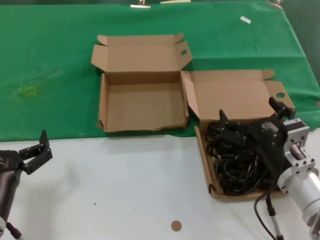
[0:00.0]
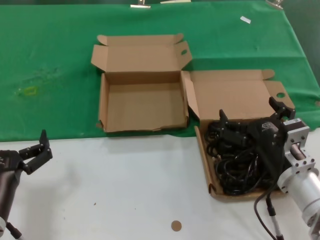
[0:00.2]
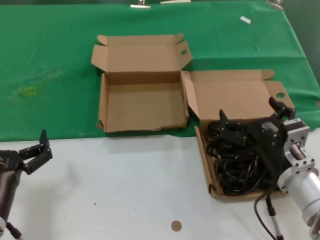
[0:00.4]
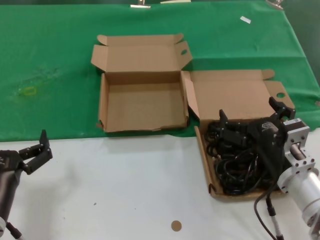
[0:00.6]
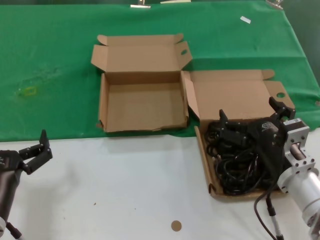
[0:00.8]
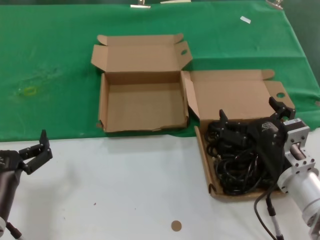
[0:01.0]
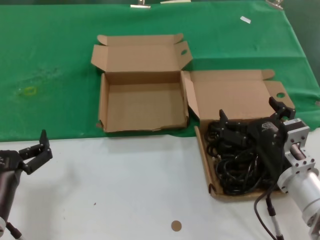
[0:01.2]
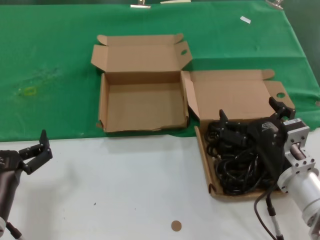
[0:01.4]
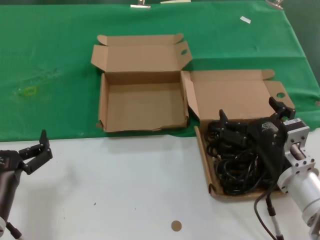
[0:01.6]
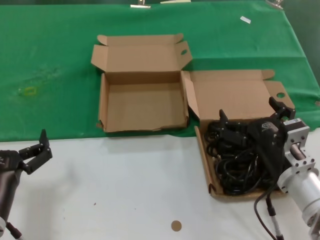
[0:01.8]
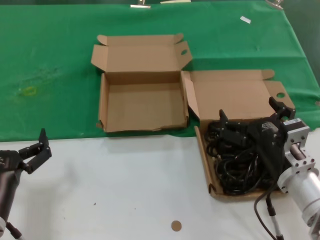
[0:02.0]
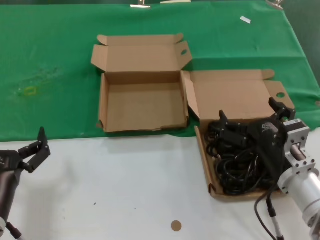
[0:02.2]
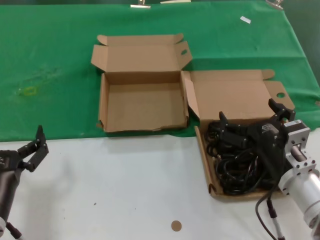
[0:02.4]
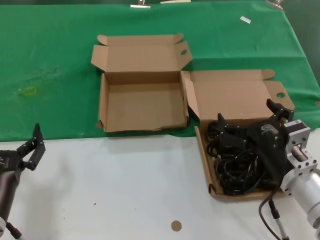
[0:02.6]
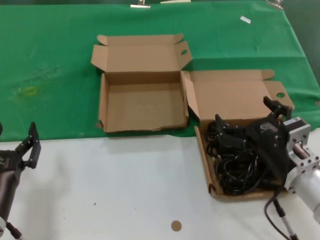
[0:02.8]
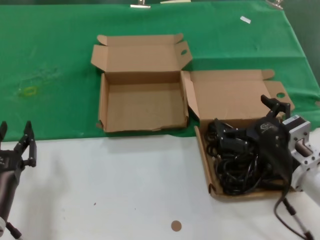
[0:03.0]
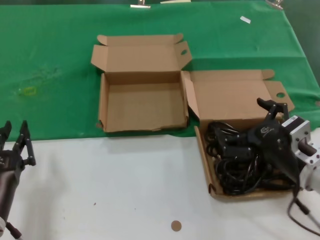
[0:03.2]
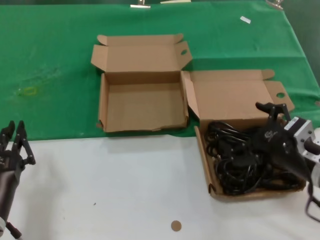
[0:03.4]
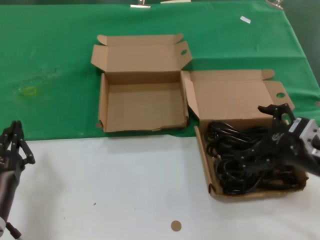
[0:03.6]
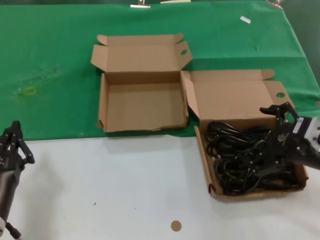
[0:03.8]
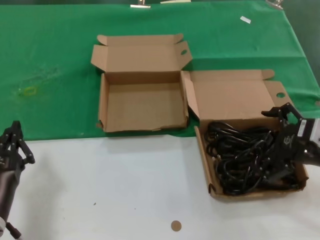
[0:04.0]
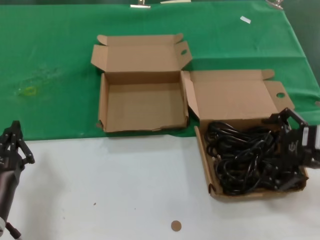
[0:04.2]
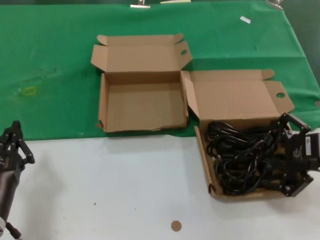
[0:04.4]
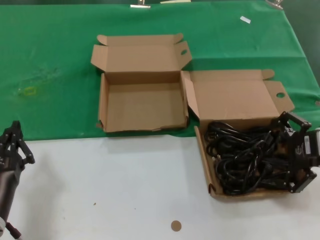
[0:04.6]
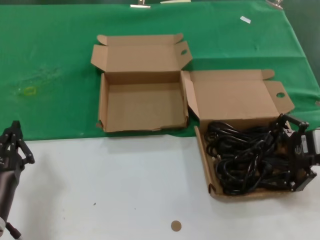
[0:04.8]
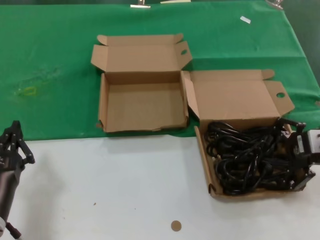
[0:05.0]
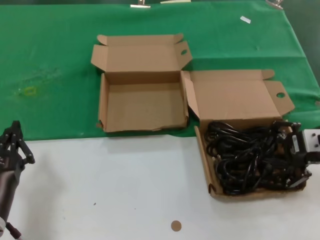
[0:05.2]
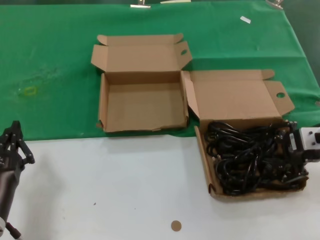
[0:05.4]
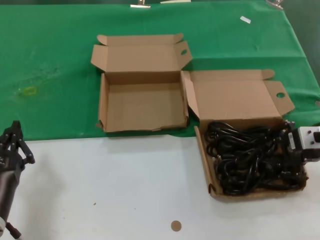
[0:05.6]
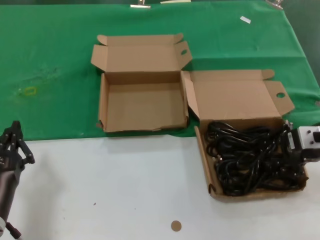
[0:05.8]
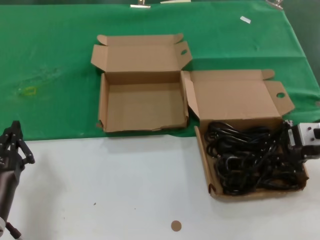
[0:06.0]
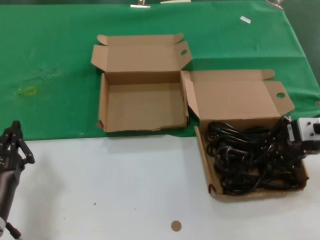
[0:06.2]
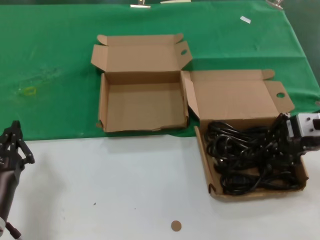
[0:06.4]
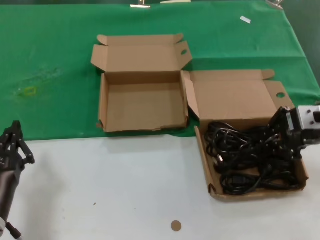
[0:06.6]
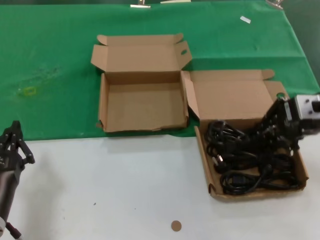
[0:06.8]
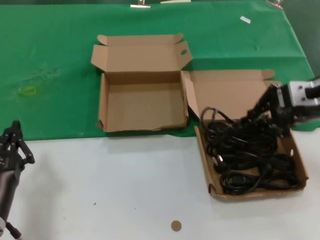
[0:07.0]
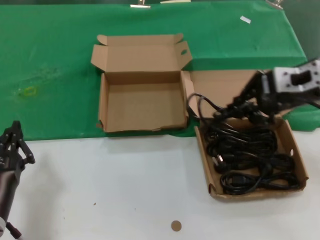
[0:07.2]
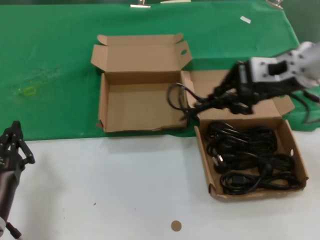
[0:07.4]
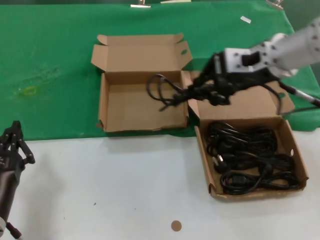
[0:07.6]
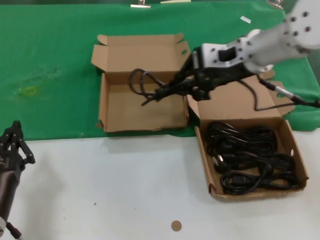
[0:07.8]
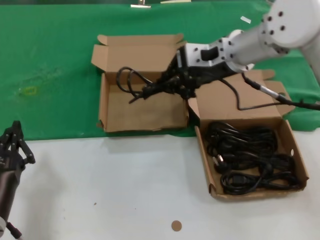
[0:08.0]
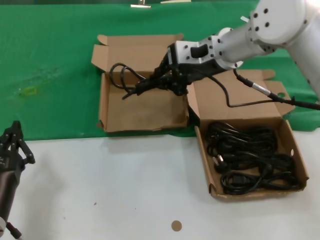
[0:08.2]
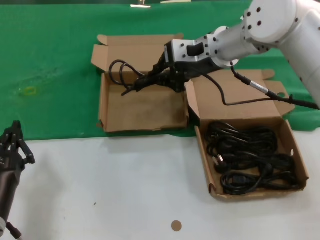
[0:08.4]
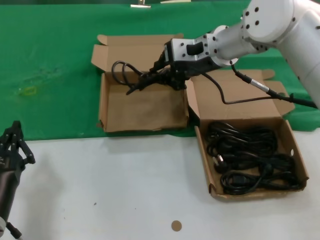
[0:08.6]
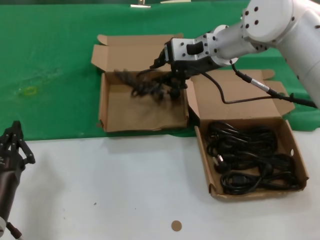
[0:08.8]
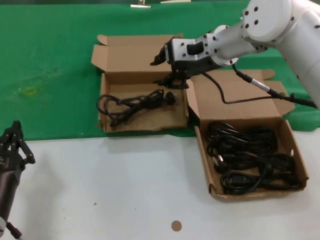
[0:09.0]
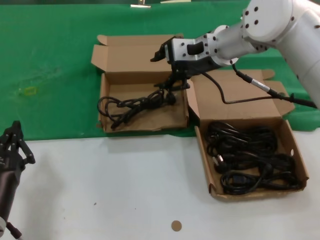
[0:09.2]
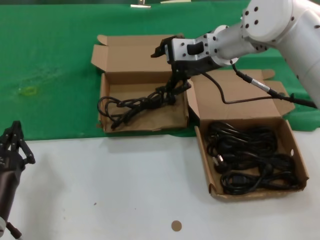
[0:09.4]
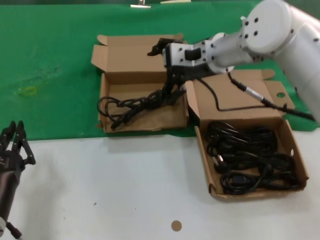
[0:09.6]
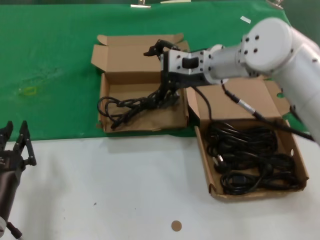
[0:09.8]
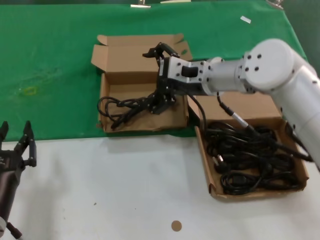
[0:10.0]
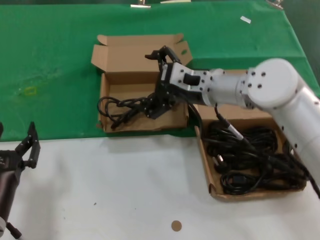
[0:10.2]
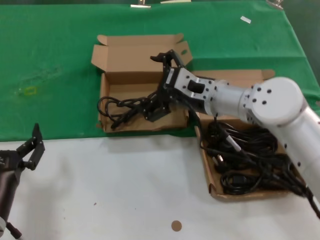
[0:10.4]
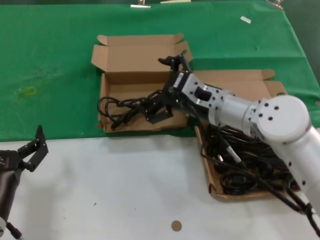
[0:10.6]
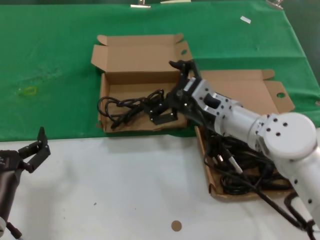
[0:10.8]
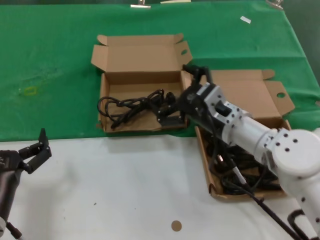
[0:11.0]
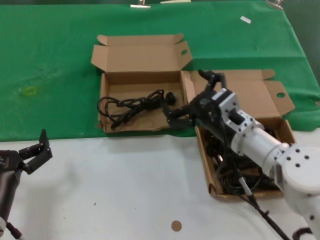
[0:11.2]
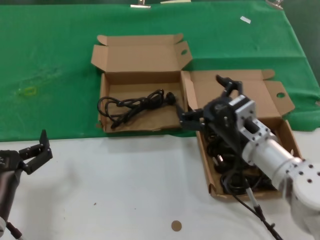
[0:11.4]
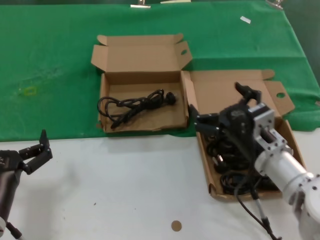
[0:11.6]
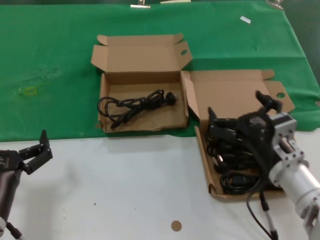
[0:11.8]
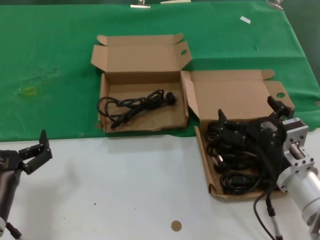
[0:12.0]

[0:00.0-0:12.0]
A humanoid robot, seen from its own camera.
Task of the whole recording: take the parts from the box containing them and put them into an empty box.
Step, 0.0 to 5.6 s: Grasp the data cable.
Step, 6.0 to 8.8 s: Place the data cable in the another box.
0.0 to 1.6 s: The two hands keep their place.
1.6 to 3.0 s: The hands make only small movements.
3.0 to 4.4 s: The right hand shifts approximately 15 cm upward and to the right.
4.4 to 6.0 s: The right hand travels forward by approximately 5 cm.
6.0 to 7.6 s: The right hand heads to the left, upward and forward, covering roughly 15 cm.
7.6 to 9.0 s: The right hand is displaced forward and to the left by about 10 cm.
9.0 to 10.4 s: The right hand is displaced downward and backward by approximately 10 cm.
10.4 to 12.0 s: The right hand travels backward, downward and to the right by approximately 20 cm.

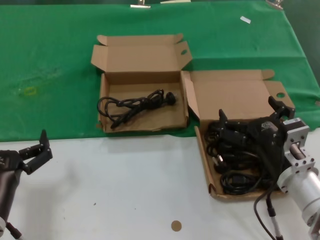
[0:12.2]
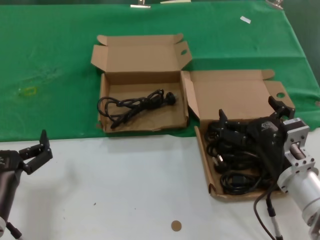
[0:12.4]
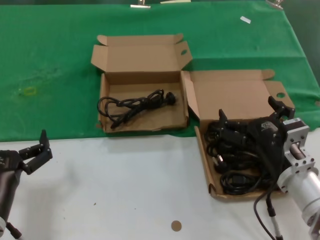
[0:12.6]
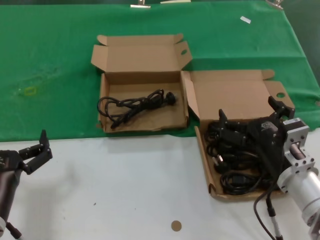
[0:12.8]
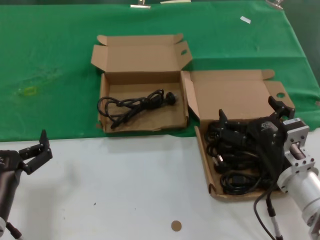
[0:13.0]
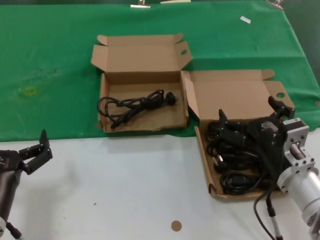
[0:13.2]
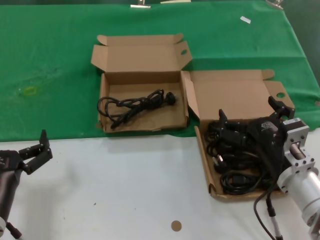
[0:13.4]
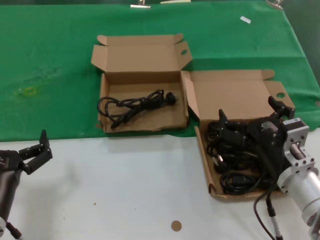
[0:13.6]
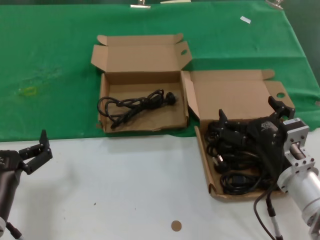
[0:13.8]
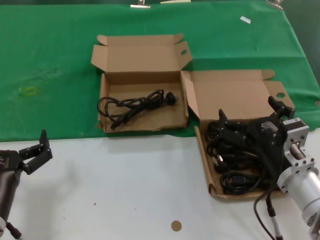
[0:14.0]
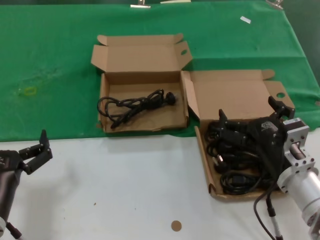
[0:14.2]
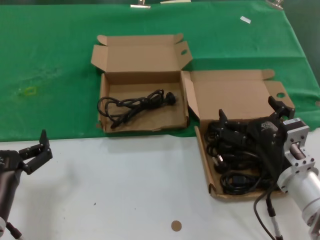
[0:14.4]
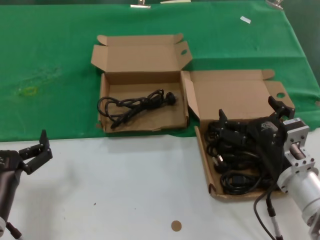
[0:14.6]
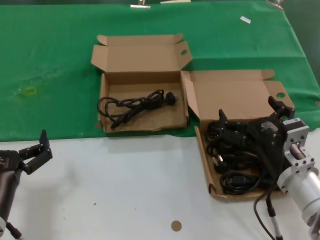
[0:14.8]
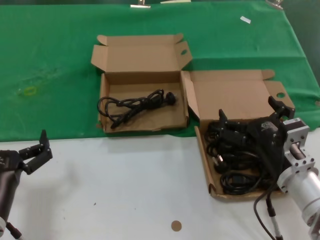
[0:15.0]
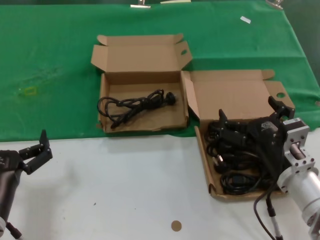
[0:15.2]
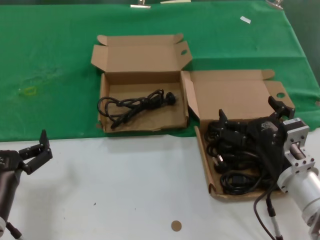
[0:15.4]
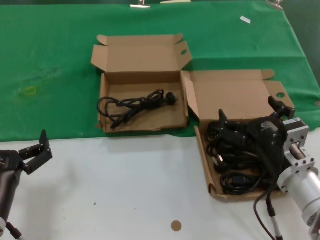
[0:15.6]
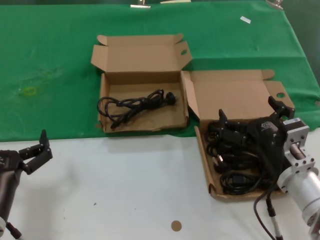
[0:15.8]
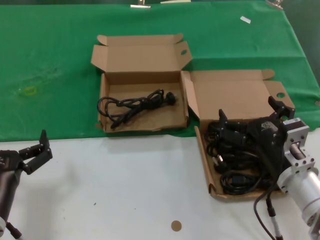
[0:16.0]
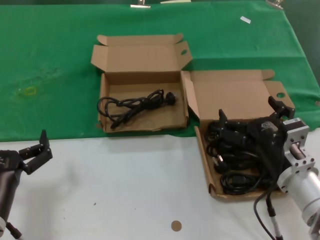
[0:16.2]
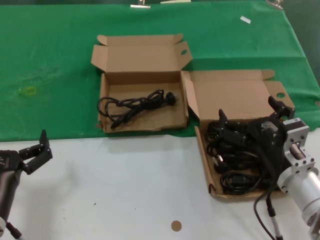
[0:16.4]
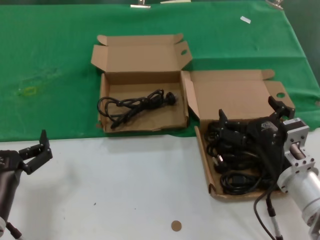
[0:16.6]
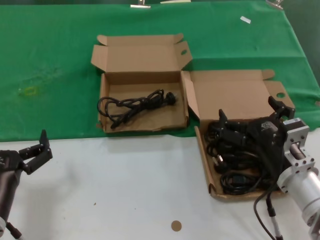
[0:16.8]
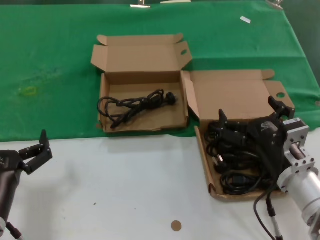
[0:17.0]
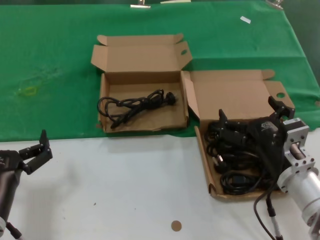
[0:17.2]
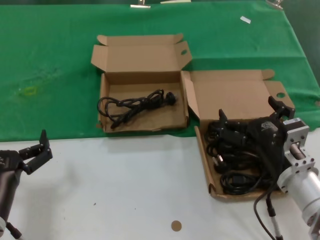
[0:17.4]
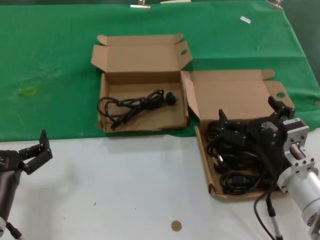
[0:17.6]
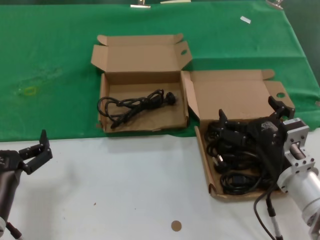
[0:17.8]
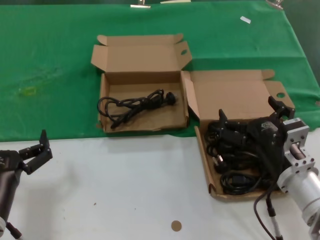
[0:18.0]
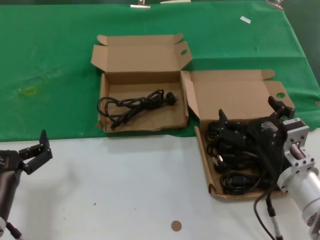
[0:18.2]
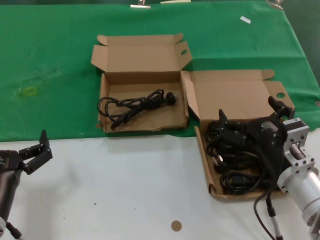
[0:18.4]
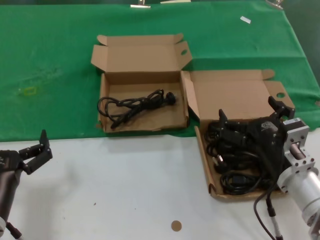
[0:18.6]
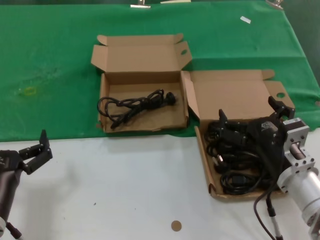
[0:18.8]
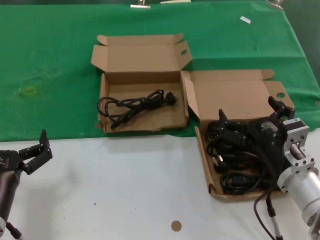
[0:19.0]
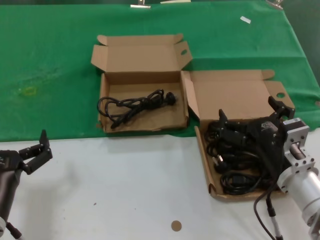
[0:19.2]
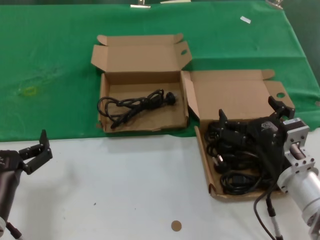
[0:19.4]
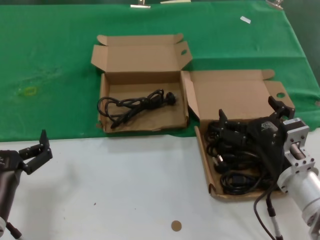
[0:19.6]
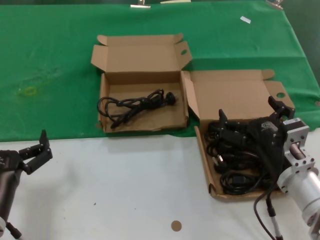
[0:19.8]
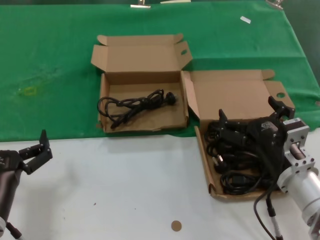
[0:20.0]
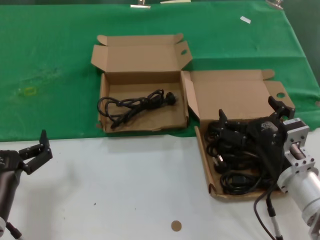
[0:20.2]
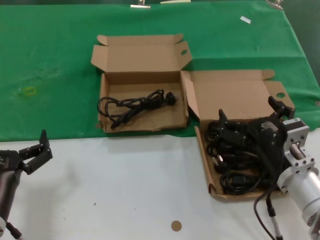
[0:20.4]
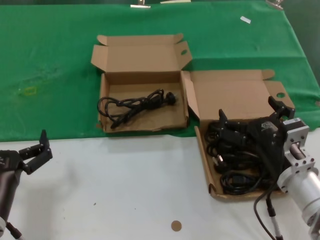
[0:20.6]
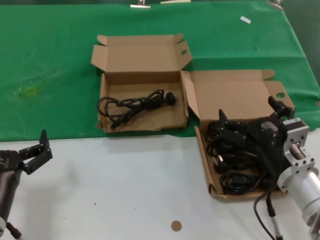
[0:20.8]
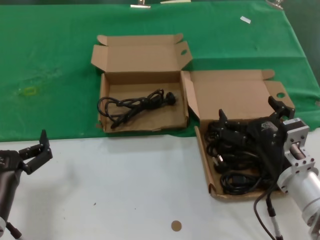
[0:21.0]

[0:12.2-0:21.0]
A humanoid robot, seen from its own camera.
Task of the whole recording: take the parts from the box containing them and put them into an empty box.
12.2 to 21.0 s: Both hands stay put.

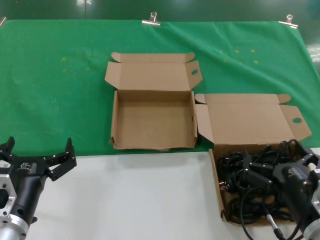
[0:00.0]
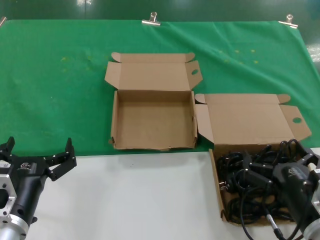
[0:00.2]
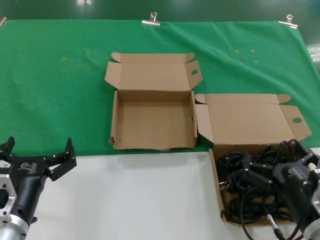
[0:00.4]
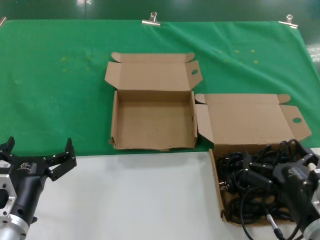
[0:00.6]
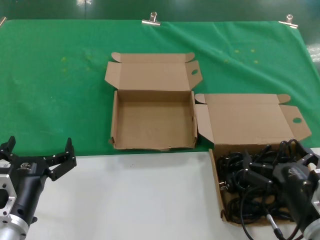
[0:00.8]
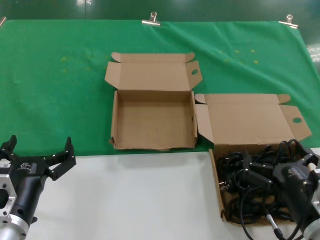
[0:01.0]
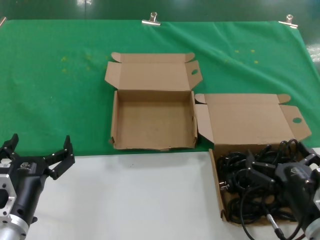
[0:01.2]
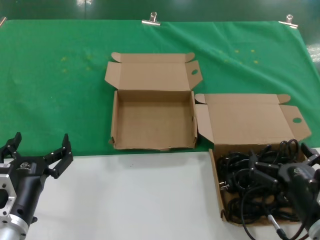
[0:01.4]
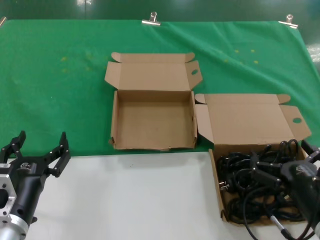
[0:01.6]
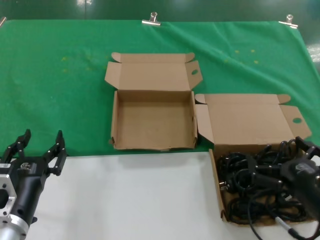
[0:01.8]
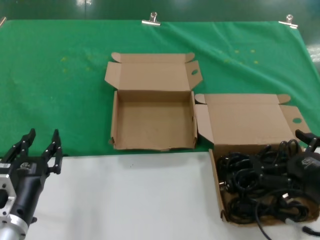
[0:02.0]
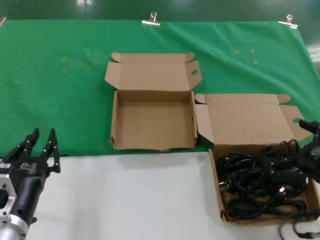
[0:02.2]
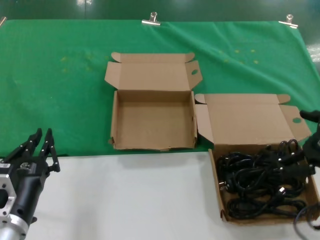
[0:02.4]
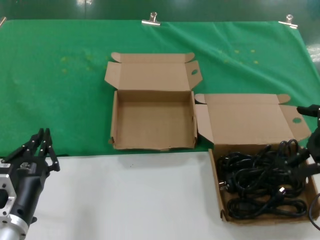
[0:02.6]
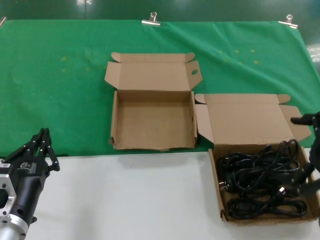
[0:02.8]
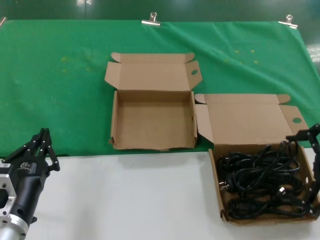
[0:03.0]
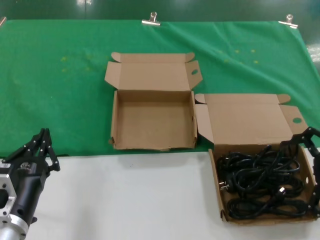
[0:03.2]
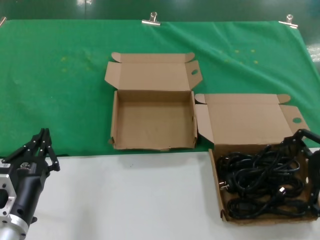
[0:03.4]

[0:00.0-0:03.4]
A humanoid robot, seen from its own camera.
Task of the whole recording: take the parts from the box containing them and put them into an empty box.
0.0 to 1.6 s: The hands stay close to where they were, moving slightly.
1.6 to 3.4 s: The right hand heads upward, to the right and forward, covering approximately 25 cm.
